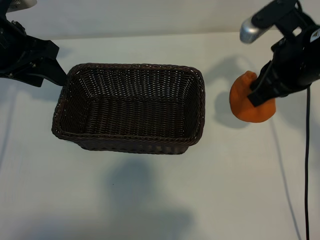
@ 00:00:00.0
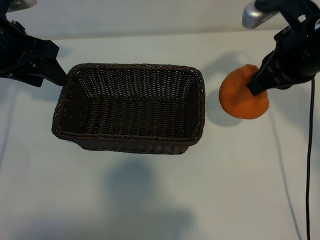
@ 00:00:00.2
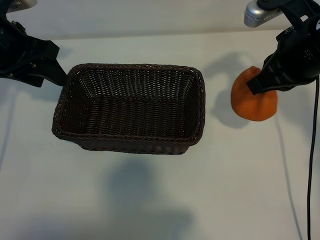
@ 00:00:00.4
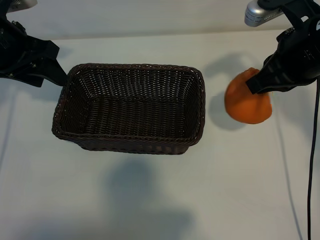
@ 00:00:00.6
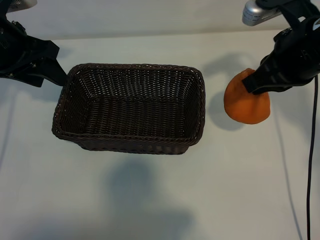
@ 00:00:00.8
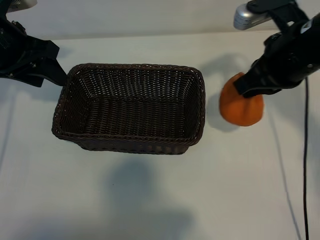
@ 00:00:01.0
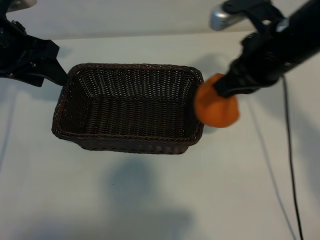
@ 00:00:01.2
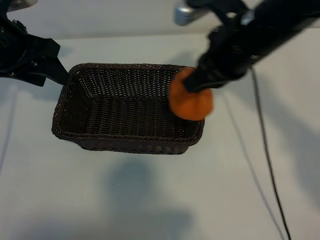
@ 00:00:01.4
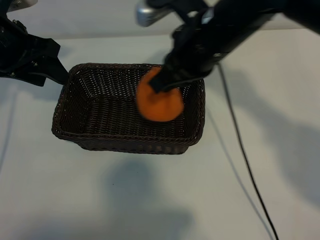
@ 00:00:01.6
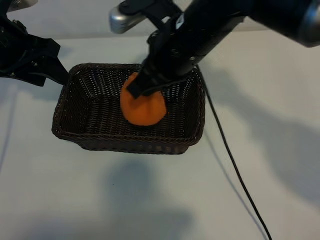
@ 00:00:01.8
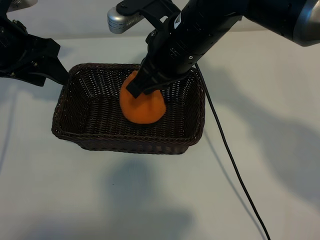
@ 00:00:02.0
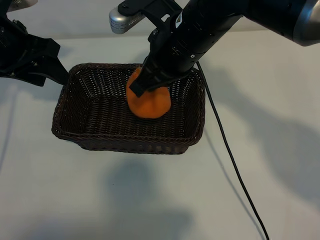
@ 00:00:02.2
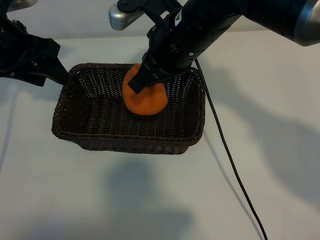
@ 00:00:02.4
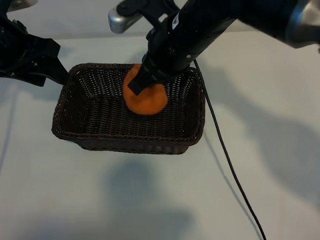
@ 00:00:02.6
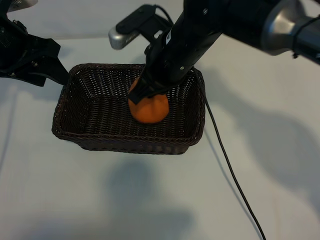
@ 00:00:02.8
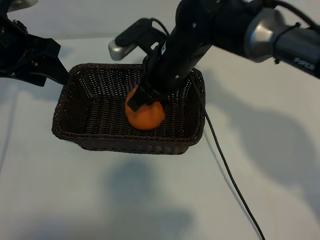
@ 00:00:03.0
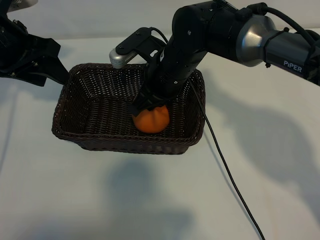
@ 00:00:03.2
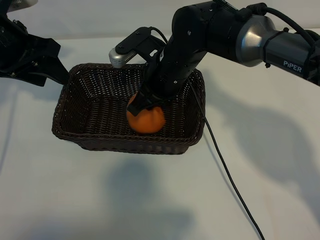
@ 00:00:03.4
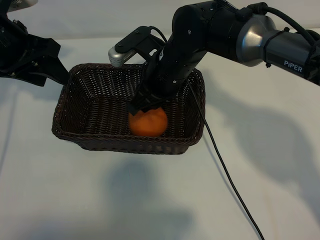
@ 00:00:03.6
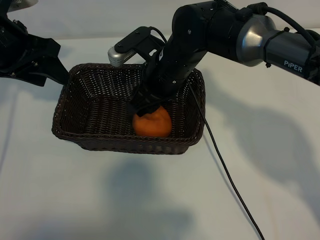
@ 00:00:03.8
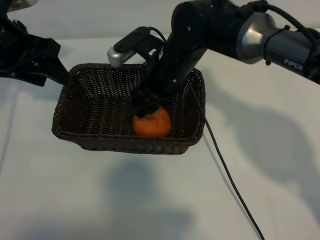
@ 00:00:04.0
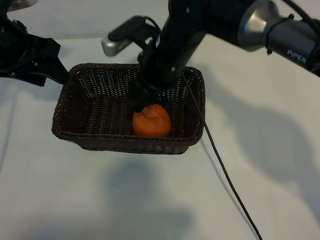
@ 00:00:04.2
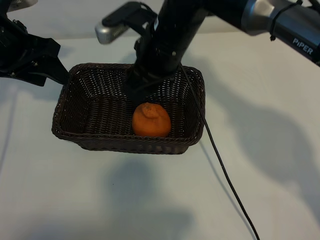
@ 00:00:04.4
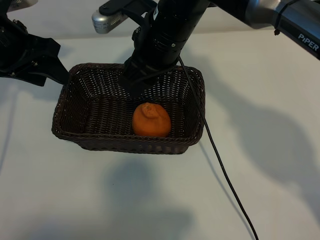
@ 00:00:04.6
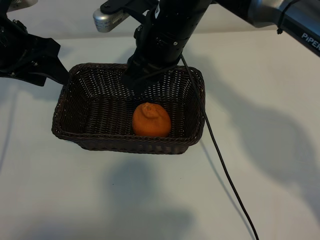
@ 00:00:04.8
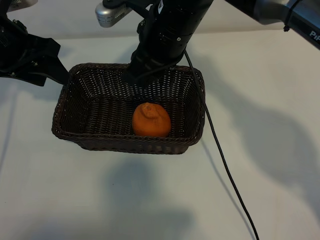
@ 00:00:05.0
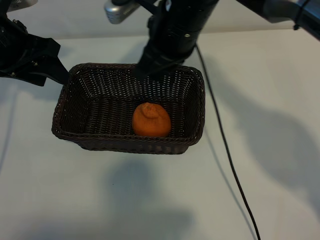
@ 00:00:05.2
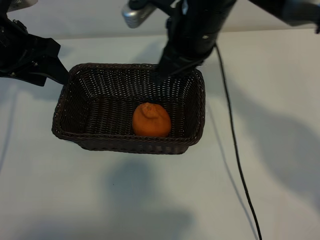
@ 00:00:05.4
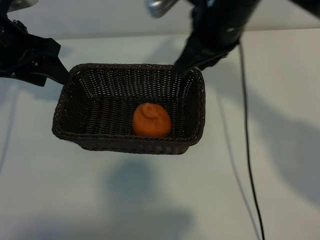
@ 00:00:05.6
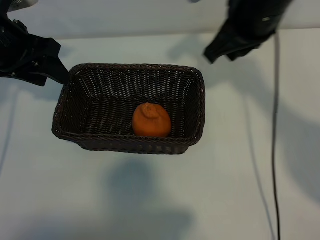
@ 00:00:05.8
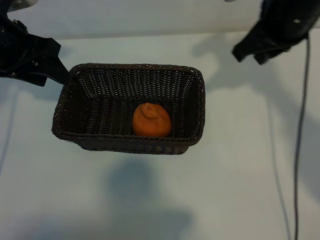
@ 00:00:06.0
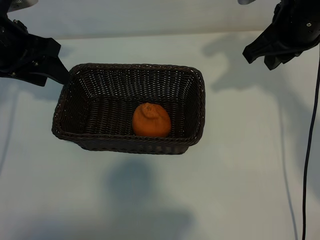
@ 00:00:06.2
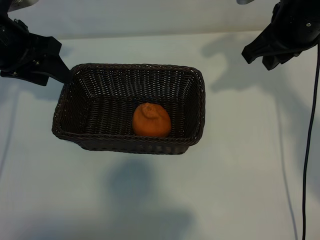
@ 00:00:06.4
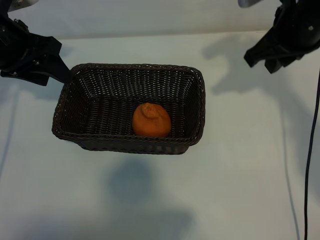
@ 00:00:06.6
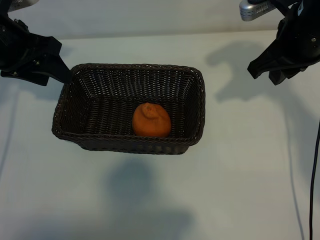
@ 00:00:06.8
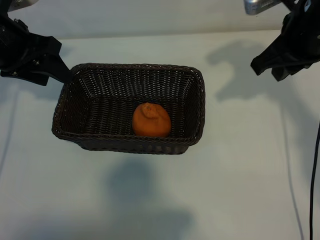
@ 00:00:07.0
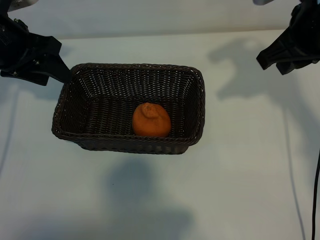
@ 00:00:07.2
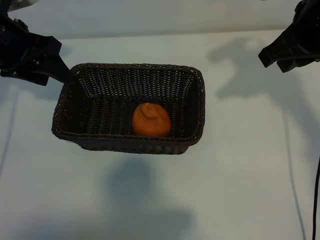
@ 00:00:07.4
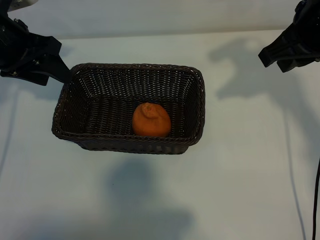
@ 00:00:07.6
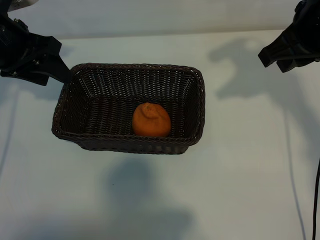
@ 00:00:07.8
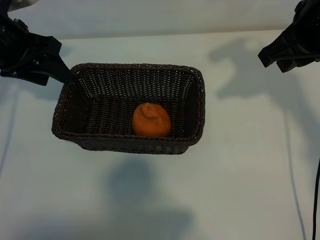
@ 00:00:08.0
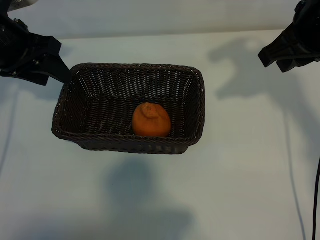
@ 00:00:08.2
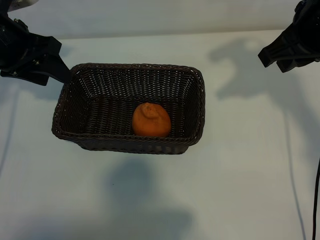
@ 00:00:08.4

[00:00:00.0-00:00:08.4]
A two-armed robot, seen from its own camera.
Task of the whole recording: pick up the orange and put it into the basket.
Step, 00:00:00.0 to 00:00:03.6: Place the orange in the basket with right gripper.
